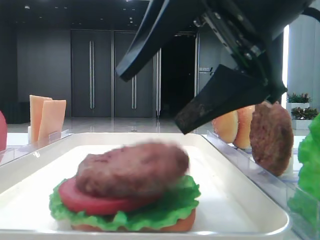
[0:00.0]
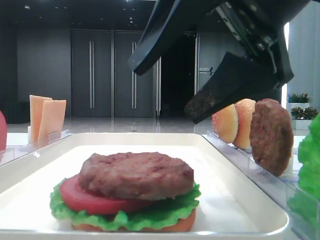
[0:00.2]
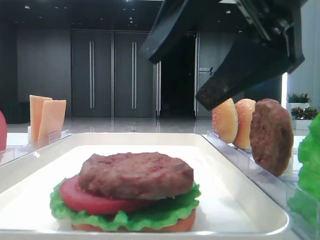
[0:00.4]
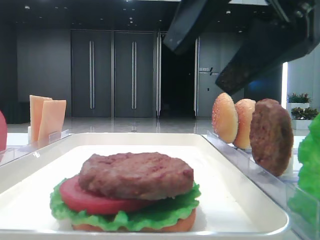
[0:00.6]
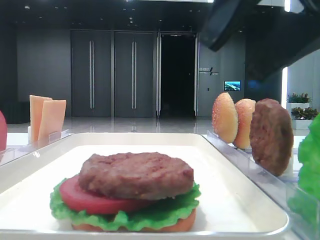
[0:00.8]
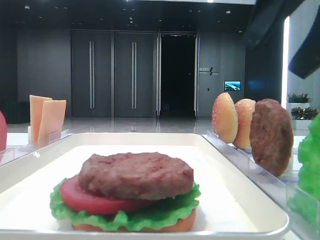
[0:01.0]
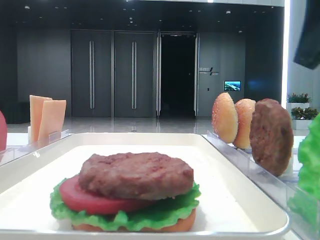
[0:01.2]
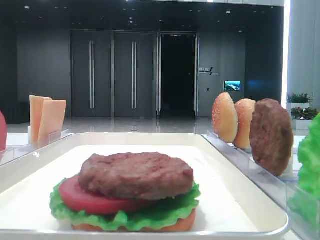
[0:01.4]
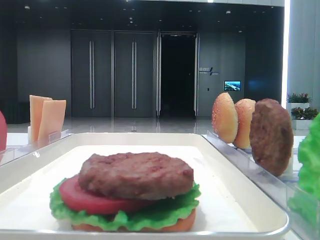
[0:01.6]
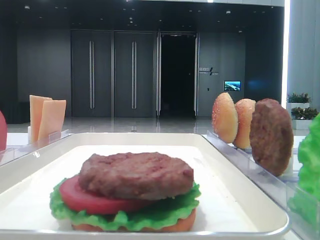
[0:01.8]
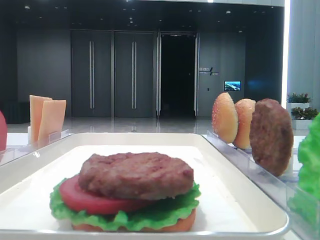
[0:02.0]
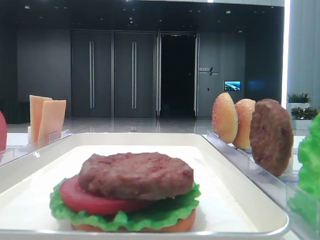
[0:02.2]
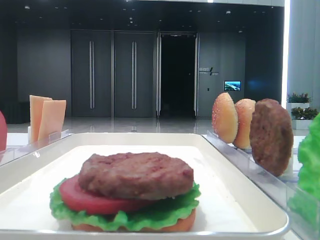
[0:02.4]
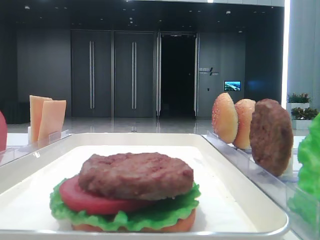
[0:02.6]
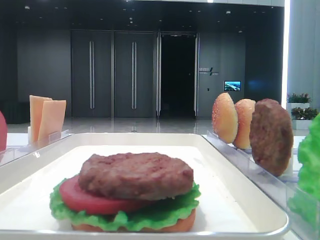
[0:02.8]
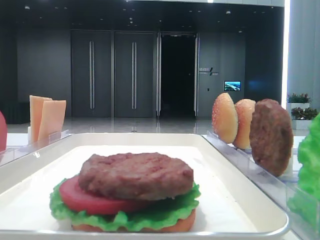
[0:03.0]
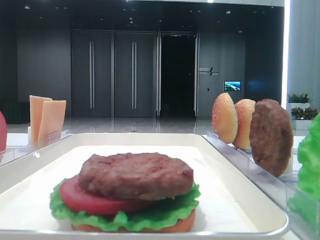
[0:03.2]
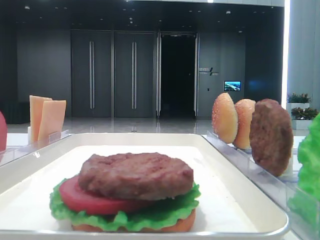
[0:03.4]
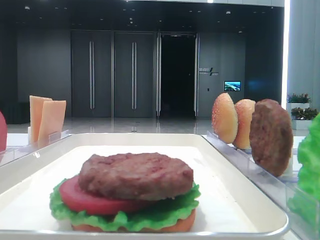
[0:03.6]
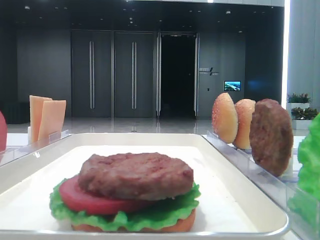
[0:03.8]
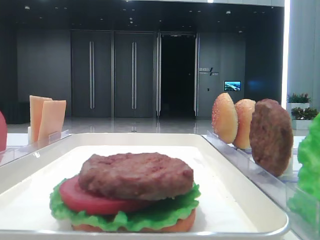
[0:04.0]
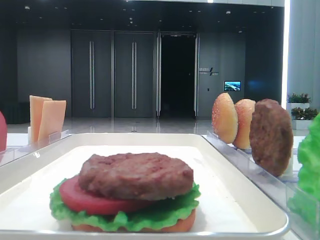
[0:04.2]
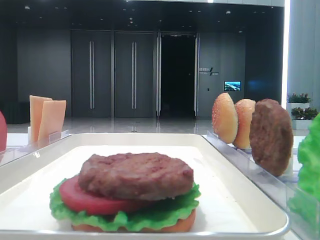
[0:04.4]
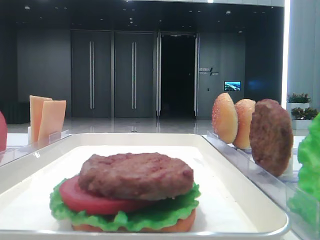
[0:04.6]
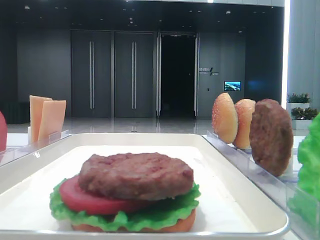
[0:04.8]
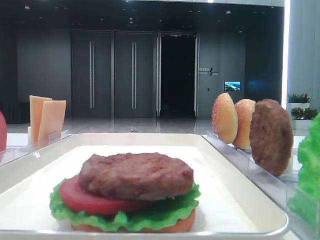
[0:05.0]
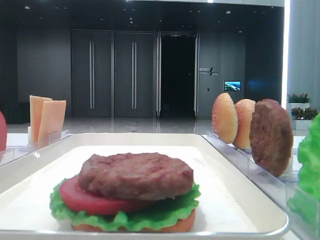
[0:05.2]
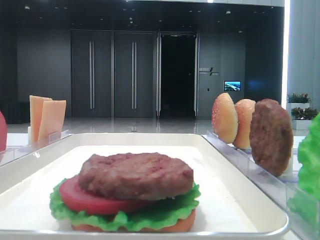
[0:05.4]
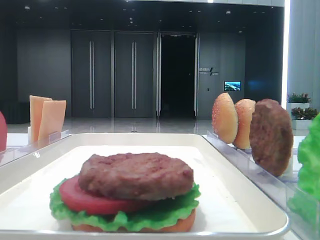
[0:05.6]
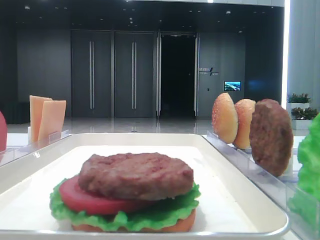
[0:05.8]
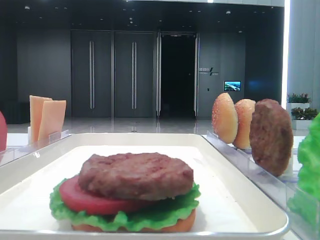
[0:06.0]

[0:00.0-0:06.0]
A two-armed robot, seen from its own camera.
0:00.0 to 0:01.6: The right gripper shifts approximately 20 cm to the right.
0:04.4 to 0:06.0: Both grippers stay put.

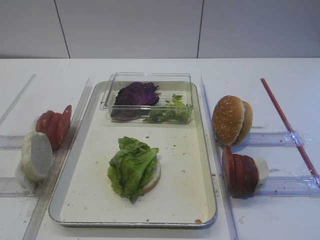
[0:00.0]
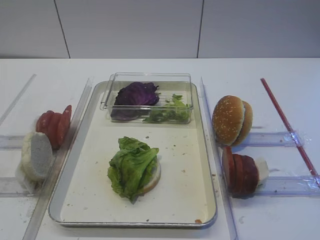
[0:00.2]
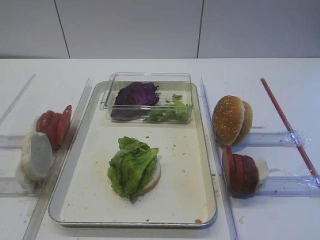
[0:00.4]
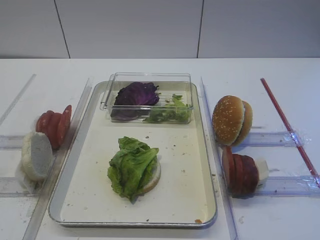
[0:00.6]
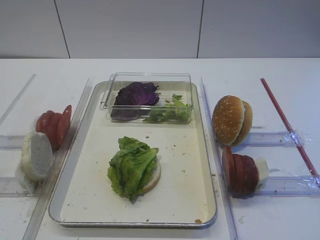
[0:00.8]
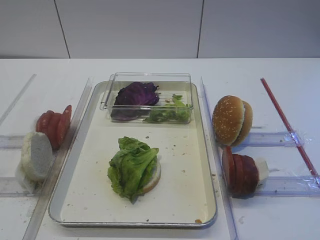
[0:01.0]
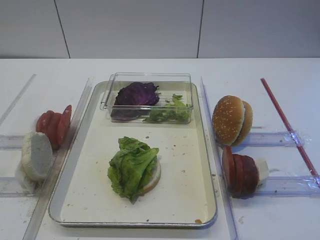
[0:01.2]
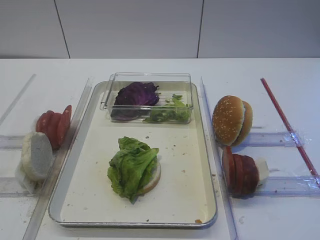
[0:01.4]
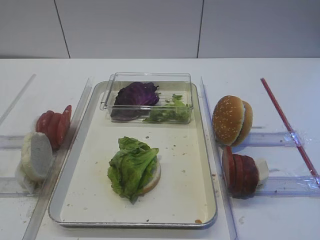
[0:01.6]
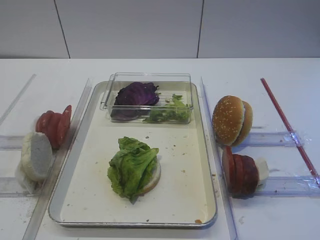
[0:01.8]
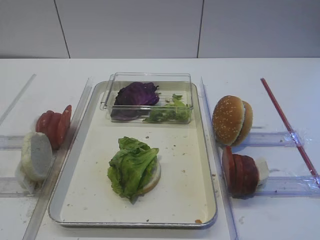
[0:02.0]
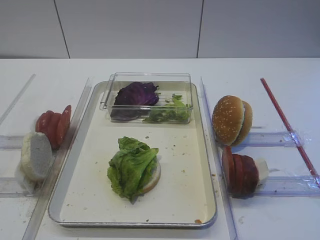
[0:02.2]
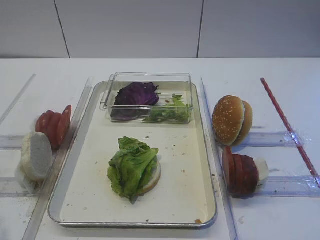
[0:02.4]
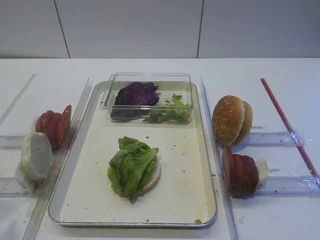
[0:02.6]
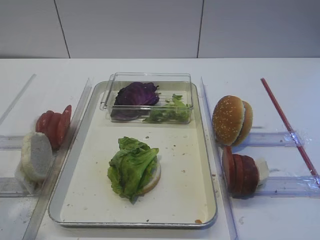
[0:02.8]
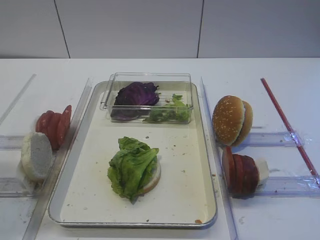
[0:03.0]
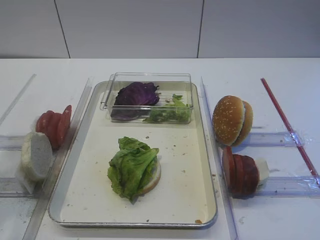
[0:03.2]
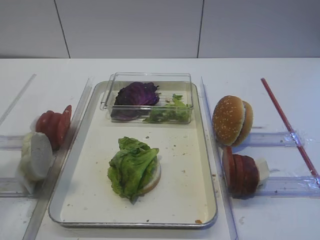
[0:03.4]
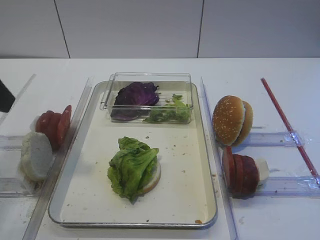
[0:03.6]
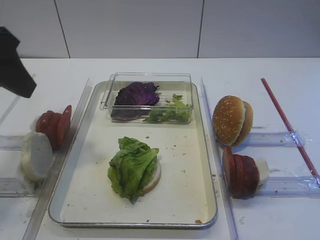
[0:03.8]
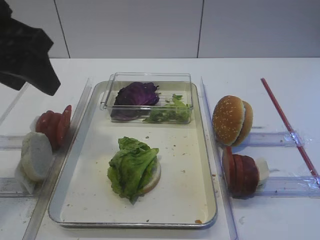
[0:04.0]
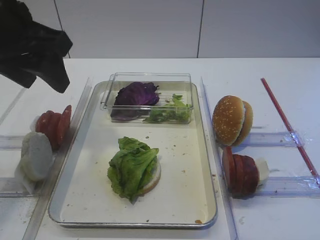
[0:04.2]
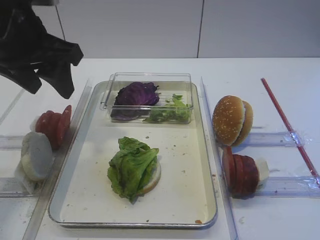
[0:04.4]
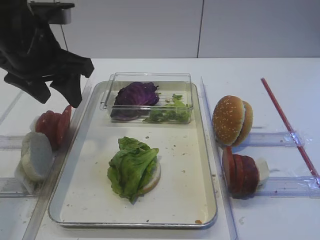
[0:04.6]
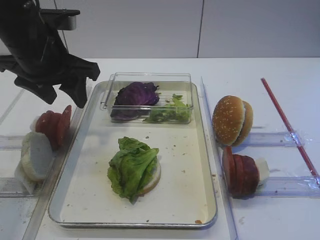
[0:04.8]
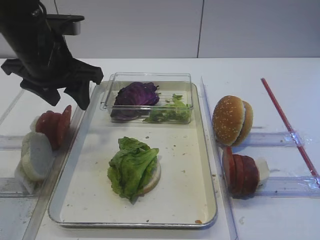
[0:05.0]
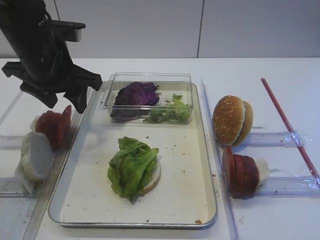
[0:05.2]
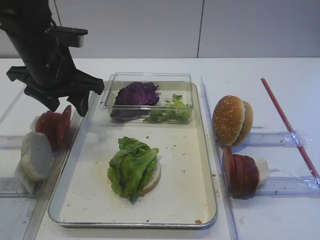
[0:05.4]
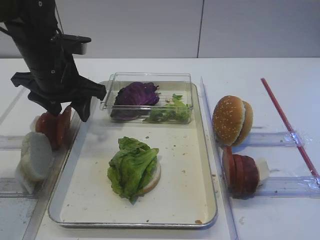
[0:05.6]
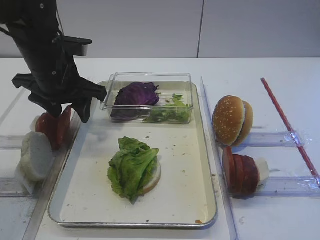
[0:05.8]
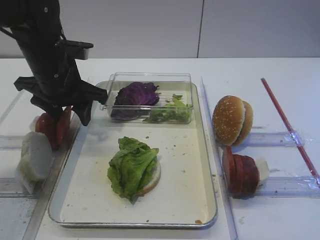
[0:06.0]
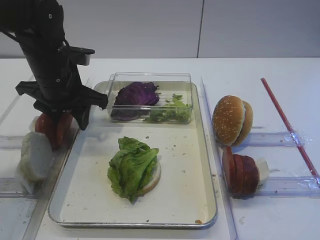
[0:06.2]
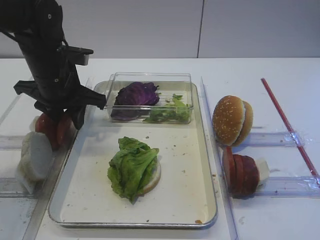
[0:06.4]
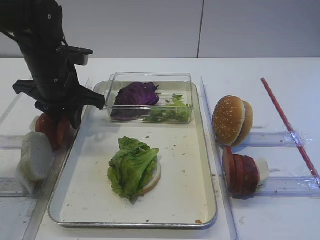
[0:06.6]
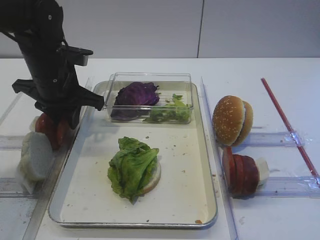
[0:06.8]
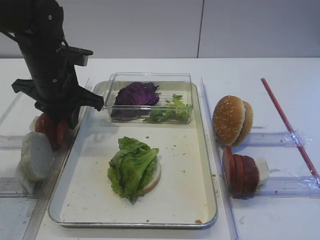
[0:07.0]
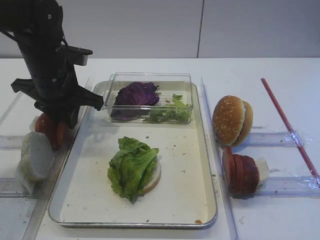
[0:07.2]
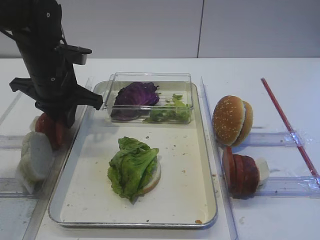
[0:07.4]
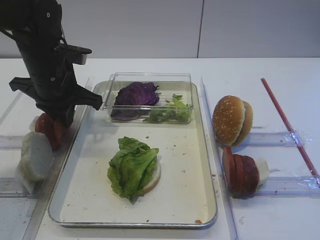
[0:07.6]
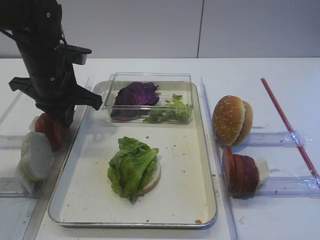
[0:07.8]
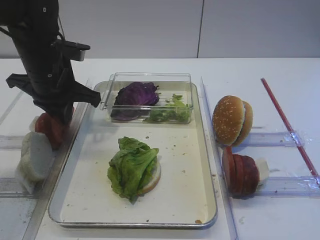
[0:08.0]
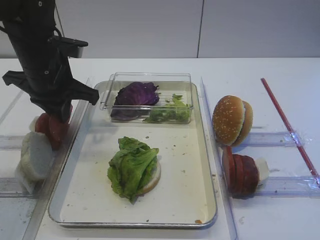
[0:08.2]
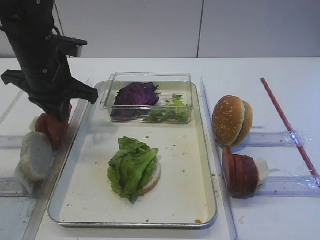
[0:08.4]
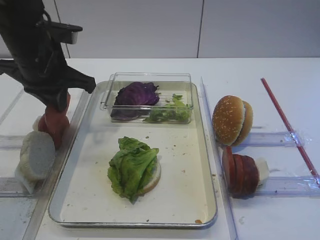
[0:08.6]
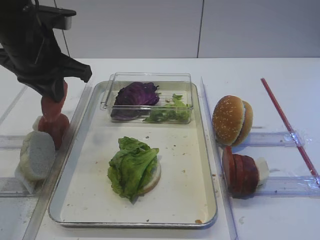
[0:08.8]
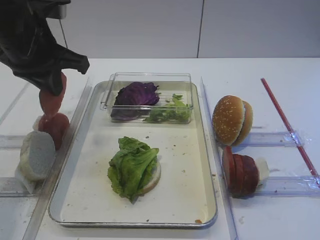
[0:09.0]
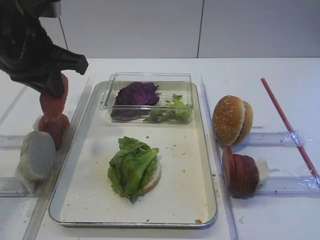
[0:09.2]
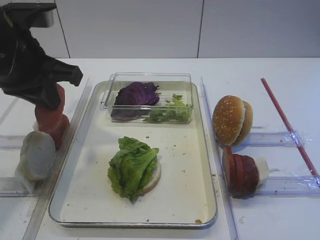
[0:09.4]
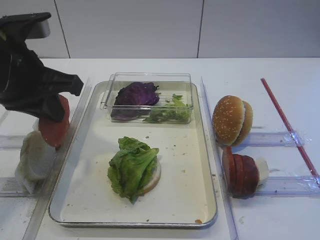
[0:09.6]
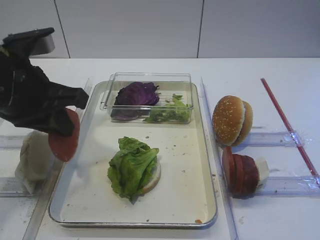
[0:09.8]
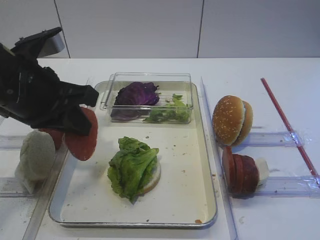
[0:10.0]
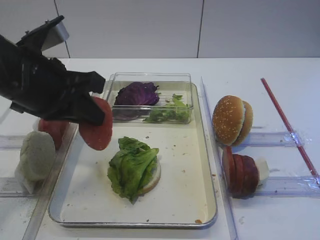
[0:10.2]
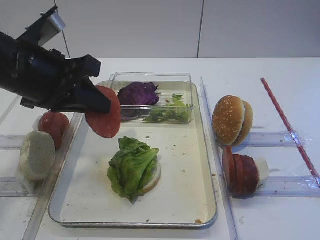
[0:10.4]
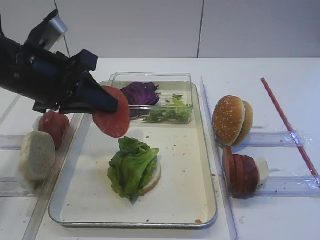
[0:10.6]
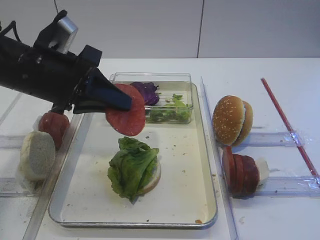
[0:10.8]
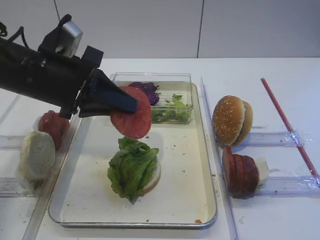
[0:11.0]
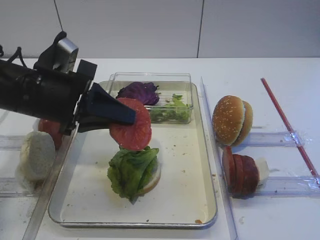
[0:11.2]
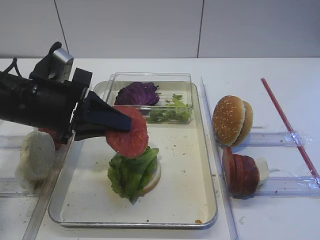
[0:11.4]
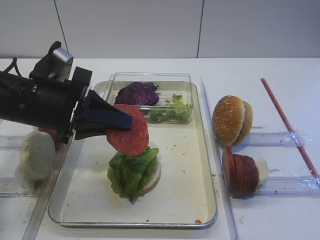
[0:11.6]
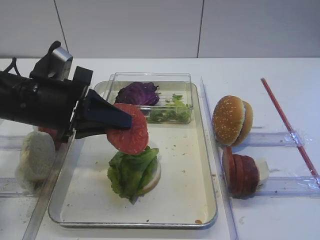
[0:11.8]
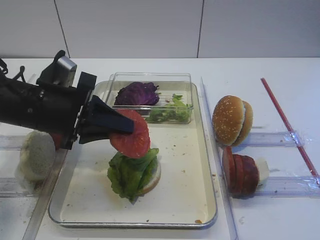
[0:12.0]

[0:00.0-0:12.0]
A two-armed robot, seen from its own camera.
Step, 0:00.0 to 0:08.4: Pick up the tomato slice with the left gripper.
0:01.6 to 0:03.0: The left gripper is displaced forward and upward by roughly 15 cm.
0:03.0 to 0:04.4: The left gripper shifts some 20 cm forward and to the right.
0:04.4 to 0:06.0: The left gripper heads downward and forward, covering some 10 cm.
0:06.0 to 0:07.6: The left gripper closes up.
0:07.6 to 0:09.0: The left gripper is displaced upward by about 10 cm.
0:09.0 to 0:10.4: The left gripper travels backward by about 5 cm.
0:10.4 to 0:12.0: The left gripper heads downward, covering some 5 cm.

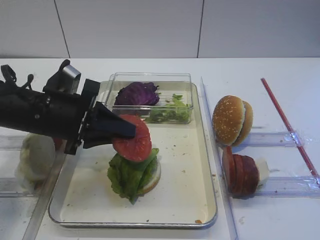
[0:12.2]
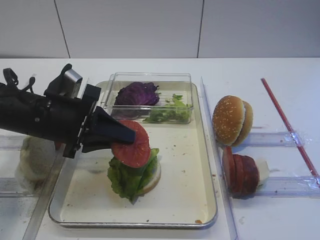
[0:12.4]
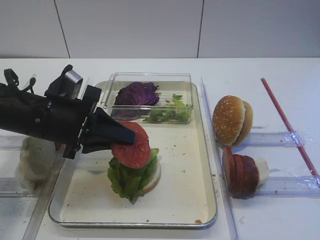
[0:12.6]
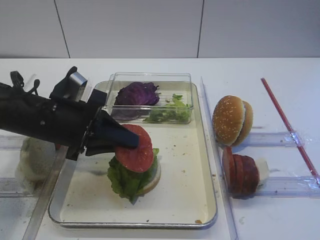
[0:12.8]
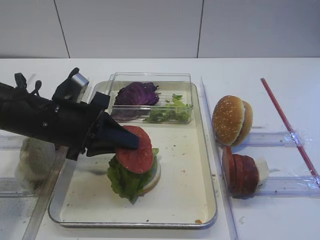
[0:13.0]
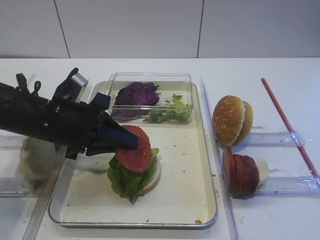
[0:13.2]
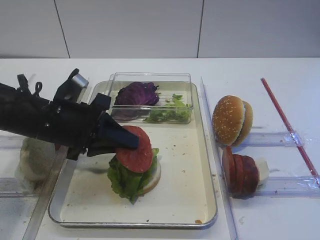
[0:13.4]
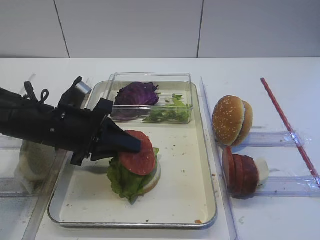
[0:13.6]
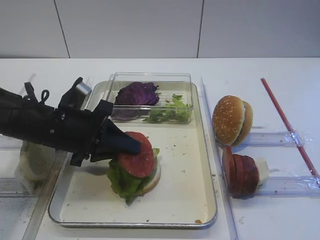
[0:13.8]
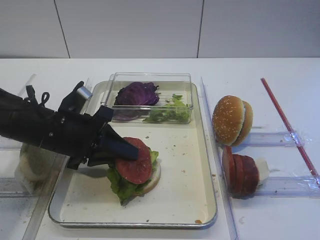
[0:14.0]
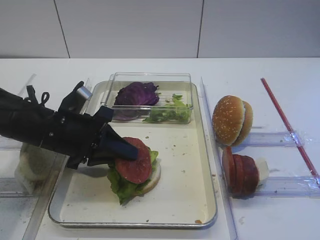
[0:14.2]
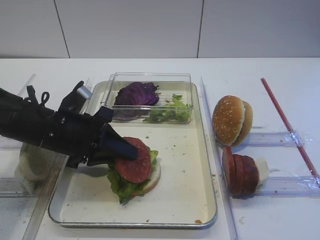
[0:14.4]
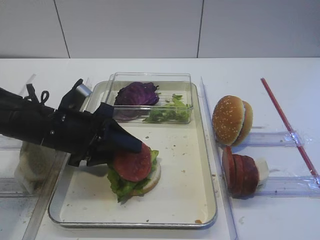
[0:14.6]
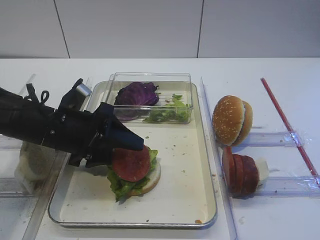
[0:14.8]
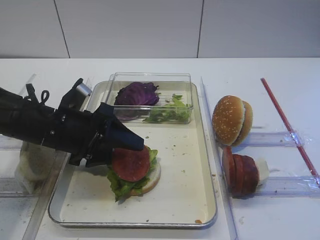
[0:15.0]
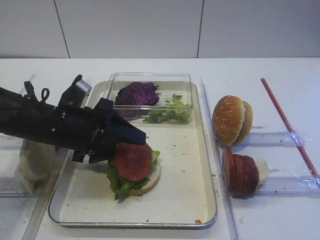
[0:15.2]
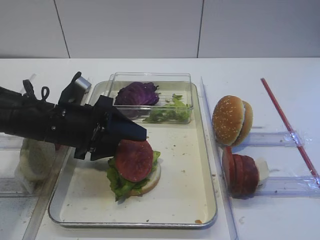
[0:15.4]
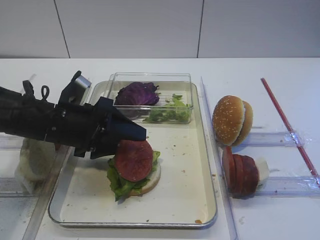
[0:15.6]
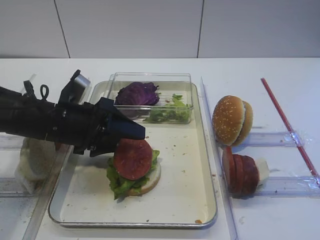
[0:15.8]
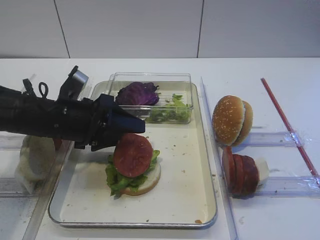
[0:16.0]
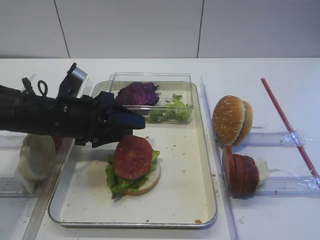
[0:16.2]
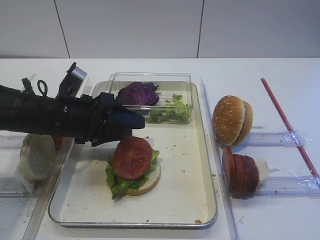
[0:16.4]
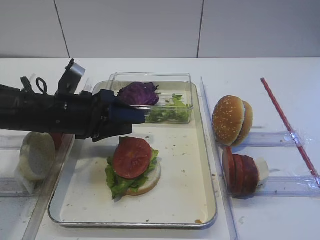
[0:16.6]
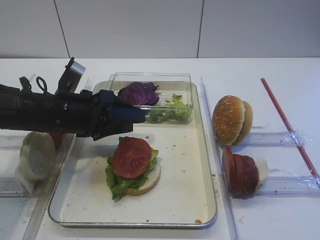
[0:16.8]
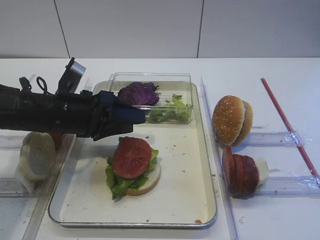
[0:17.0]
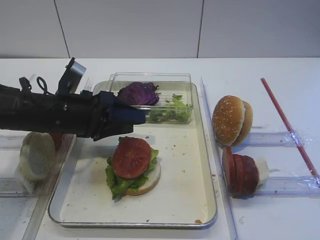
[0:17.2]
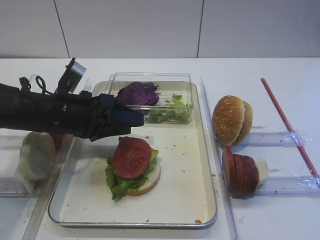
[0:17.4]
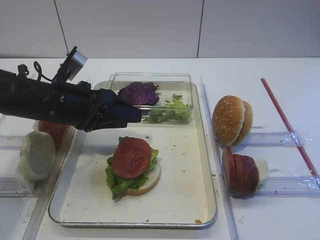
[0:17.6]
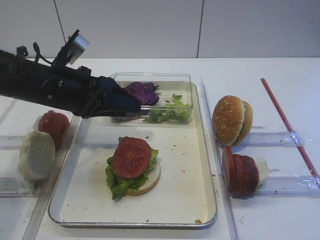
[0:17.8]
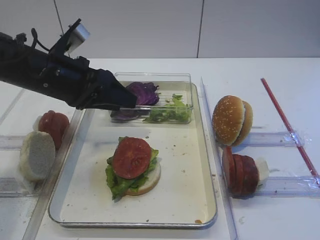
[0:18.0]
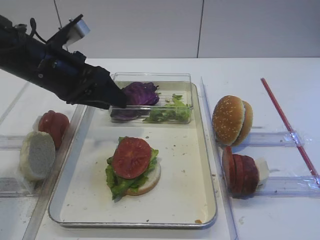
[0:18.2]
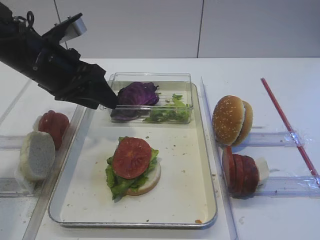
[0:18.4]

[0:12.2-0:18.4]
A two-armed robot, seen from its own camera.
Step, 0:12.2 to 0:16.6: Place the tomato slice on the lettuce leaf with the left gripper.
0:12.2 to 0:13.8: There are only small adjustments of the grippers.
0:13.8 to 0:15.4: The left gripper opens up.
0:15.4 to 0:16.8: The grippers move only a little.
0:16.8 to 0:18.4: The left gripper goes roughly 10 cm upward.
